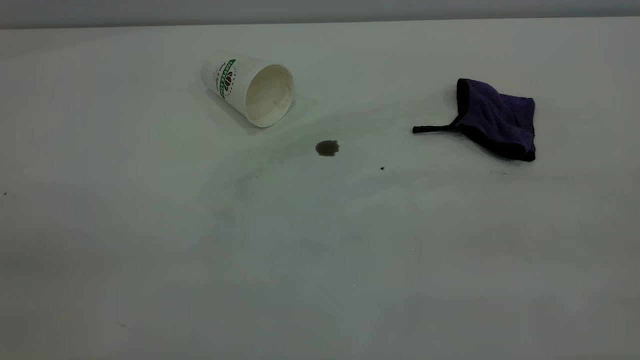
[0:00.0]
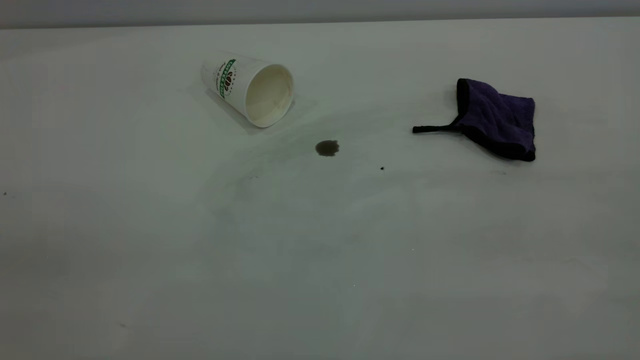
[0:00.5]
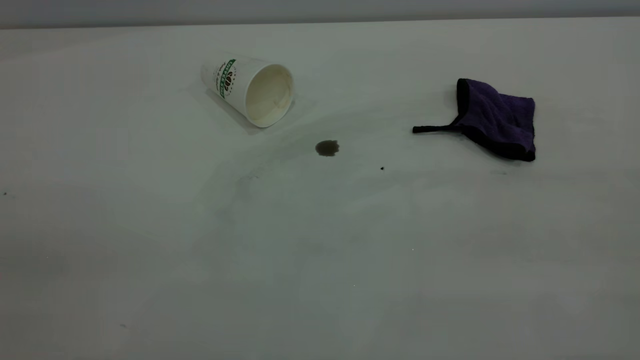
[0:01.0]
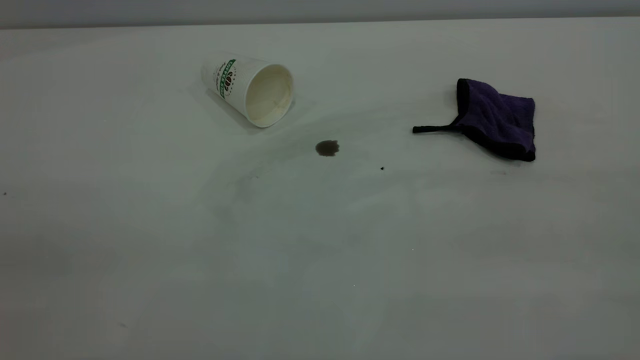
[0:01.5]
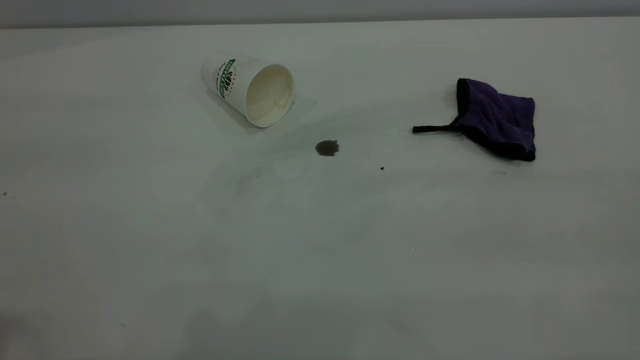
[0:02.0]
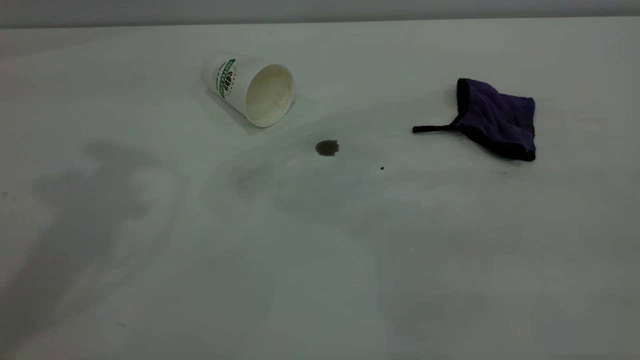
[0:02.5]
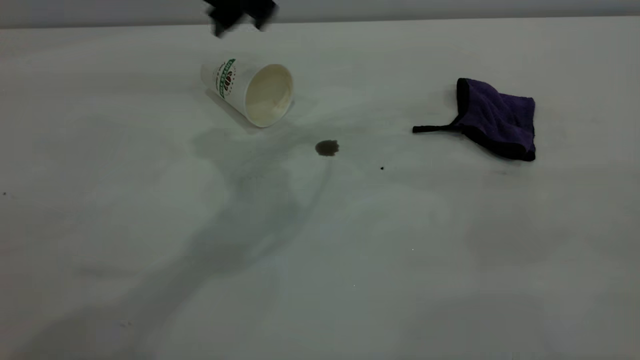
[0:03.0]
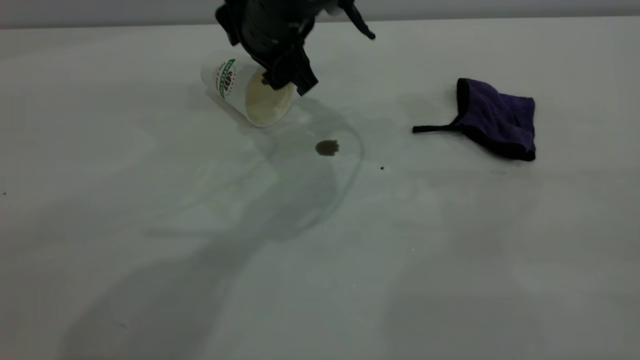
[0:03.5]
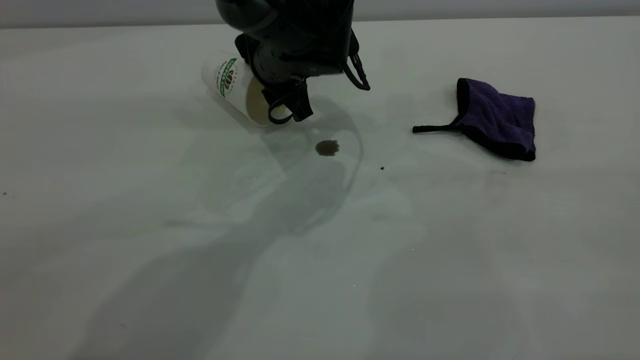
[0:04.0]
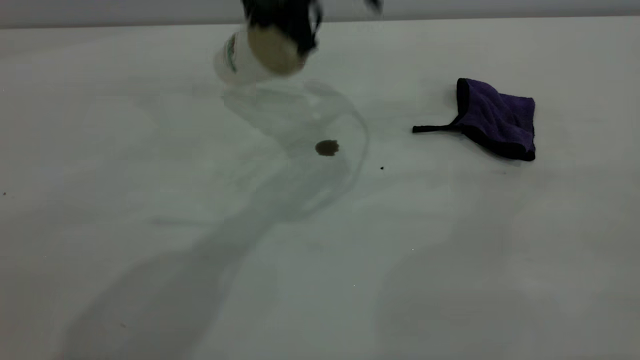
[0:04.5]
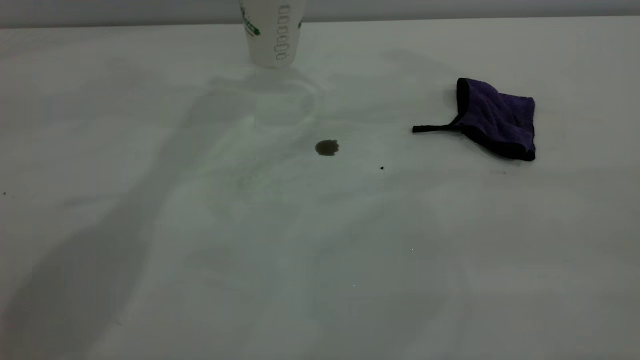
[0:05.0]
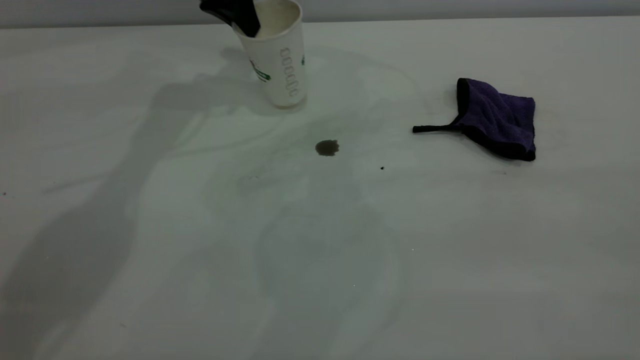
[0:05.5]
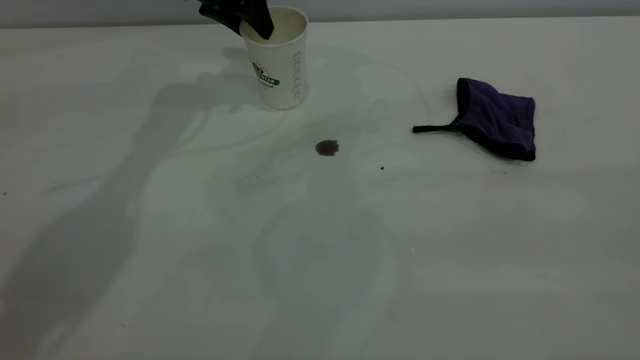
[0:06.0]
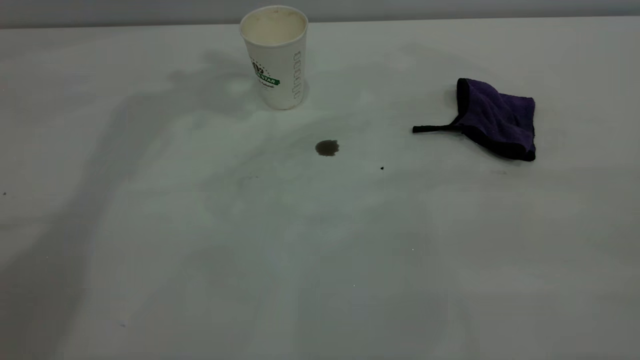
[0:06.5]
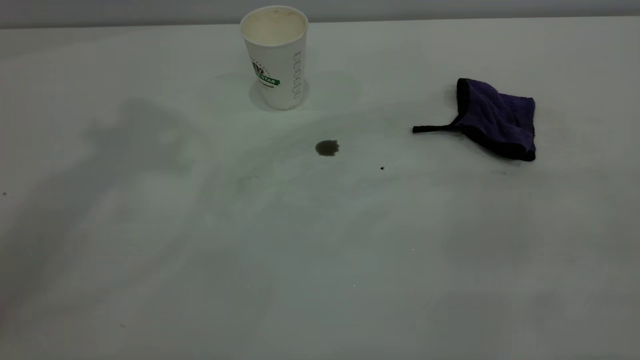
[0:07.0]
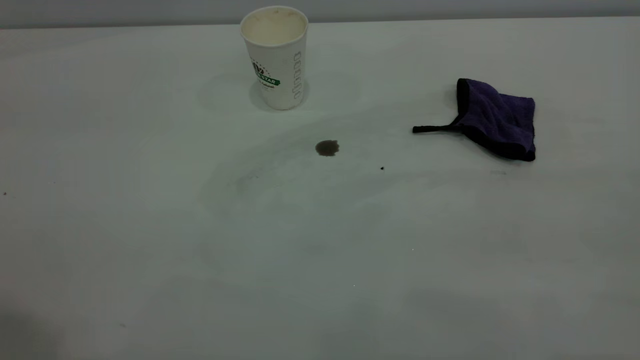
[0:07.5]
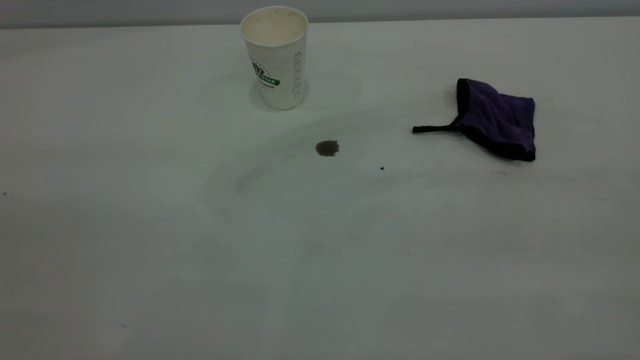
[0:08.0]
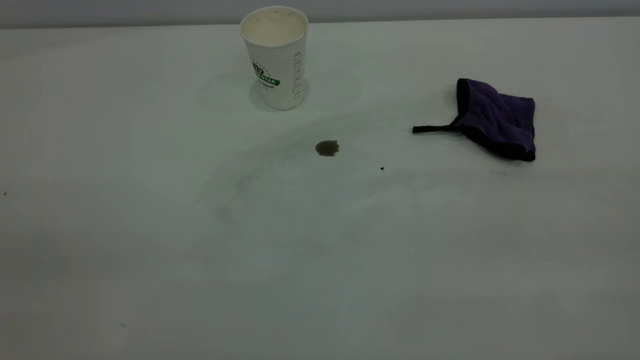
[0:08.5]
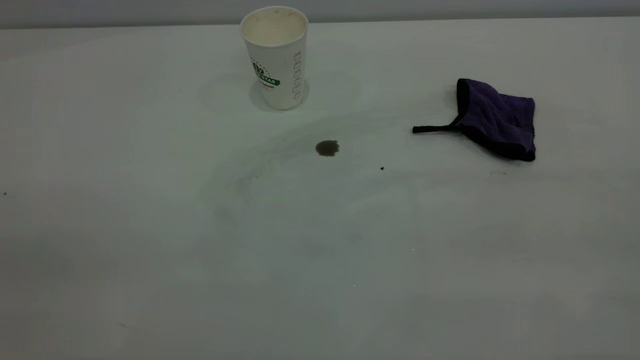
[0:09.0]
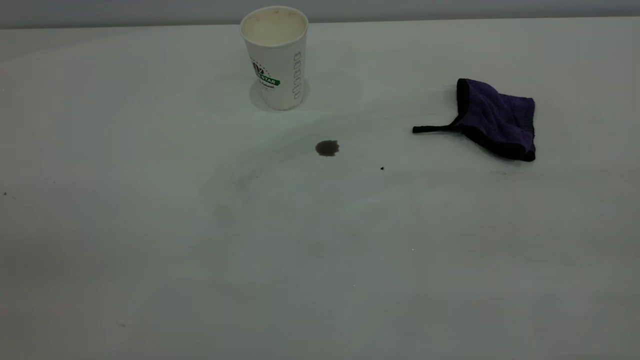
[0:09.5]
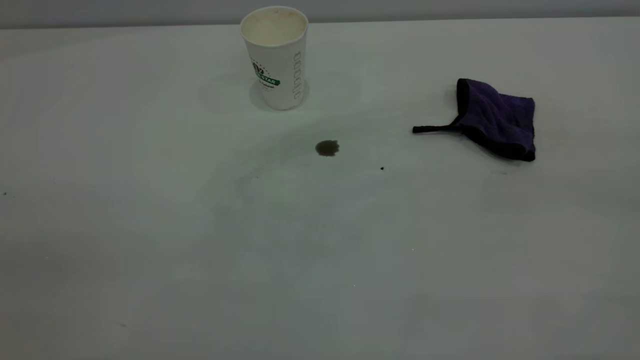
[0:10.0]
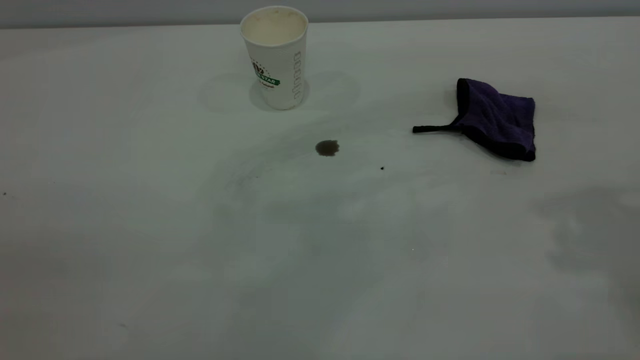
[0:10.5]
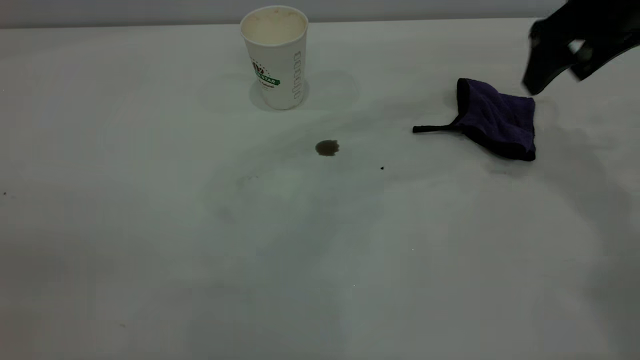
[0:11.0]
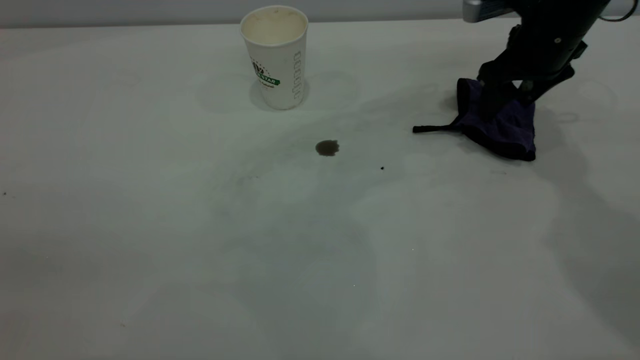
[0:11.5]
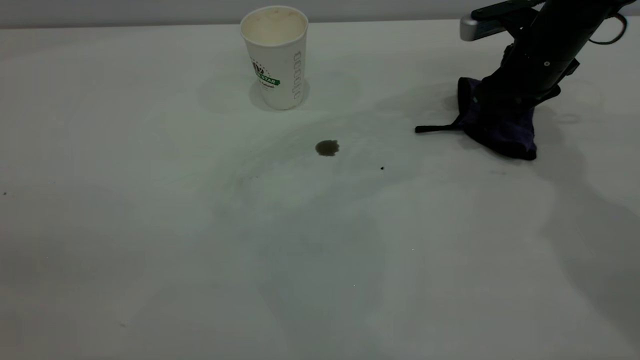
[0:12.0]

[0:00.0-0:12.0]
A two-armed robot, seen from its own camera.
Task of the whole recording: the left gripper pick up the fallen cup and place it upright, the right gripper grasp the purple rag and wipe the coffee stain on the table, the right gripper put the purple rag back in its original position.
Step, 0:00.0 to 0:06.0: Stand the paper cup upright.
0:02.0 to 0:04.0: The left gripper shifts about 50 cm downward, forward and to the right.
0:04.0 to 0:06.0: The left gripper travels to the left, forward and upward by about 20 cm, and closes, then opens again.
0:06.0 to 0:08.0: The left gripper moves backward and upward, roughly 60 cm.
0:10.0 to 0:12.0: The right gripper goes approximately 50 cm forward and downward, and opens, then closes again.

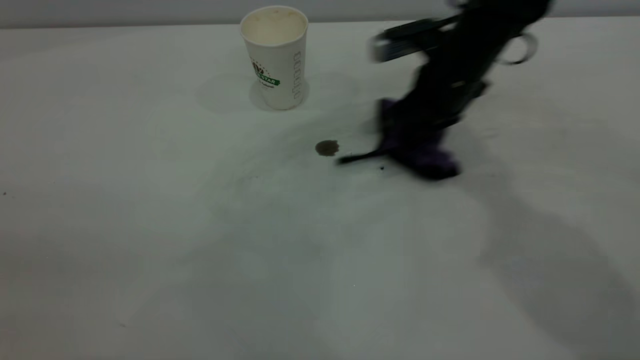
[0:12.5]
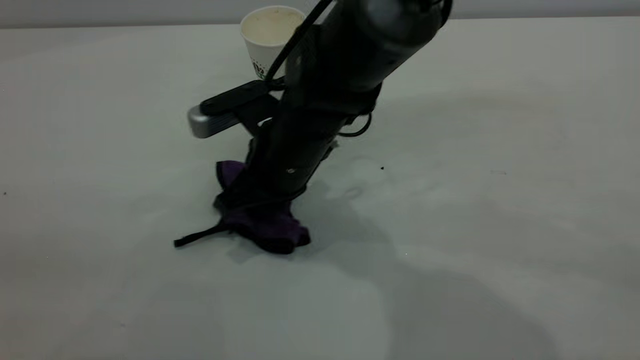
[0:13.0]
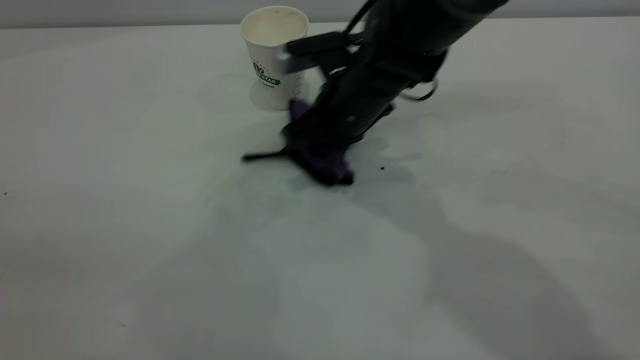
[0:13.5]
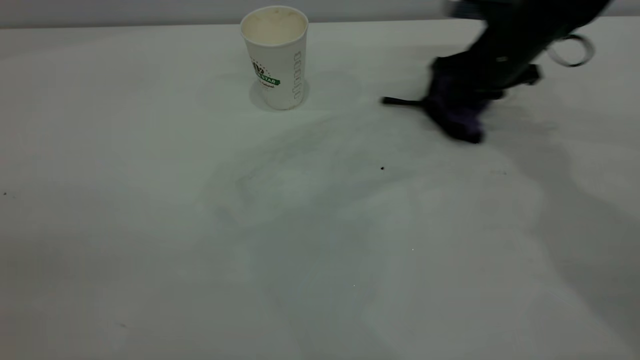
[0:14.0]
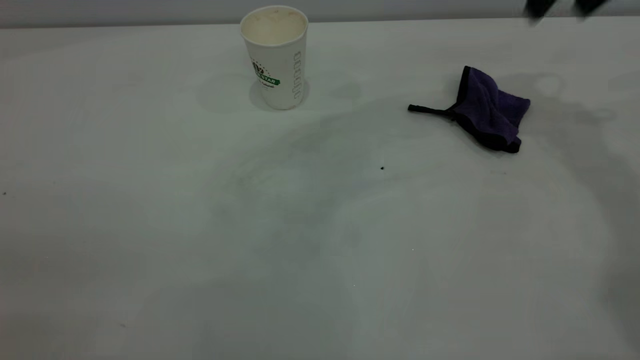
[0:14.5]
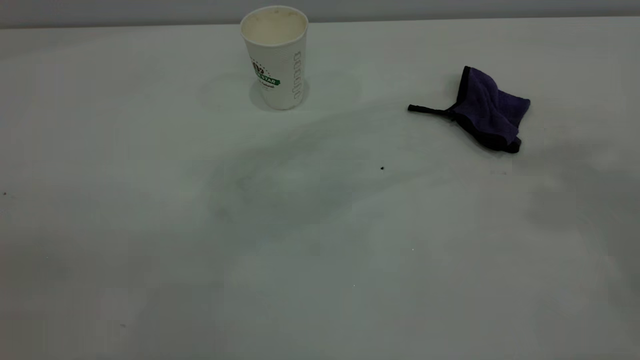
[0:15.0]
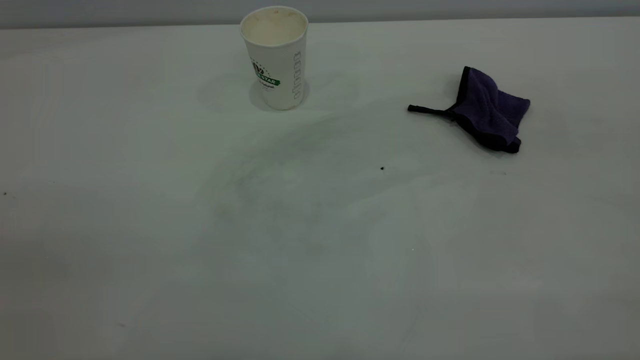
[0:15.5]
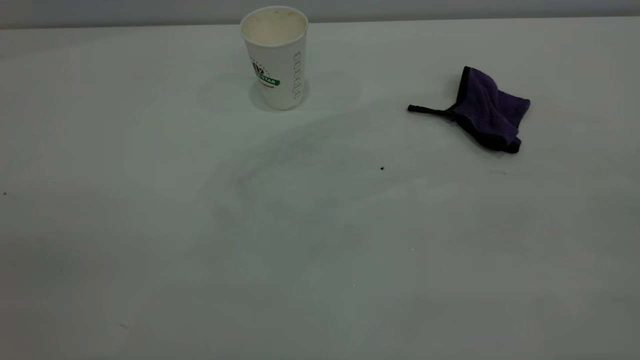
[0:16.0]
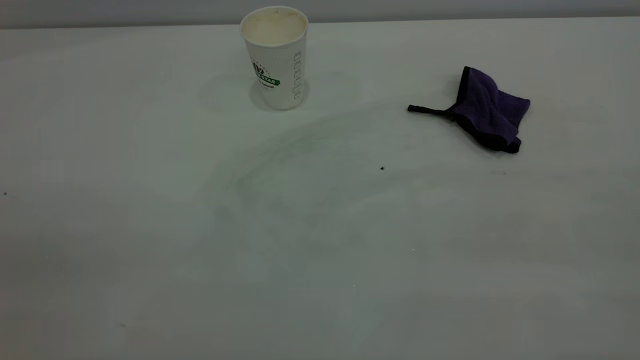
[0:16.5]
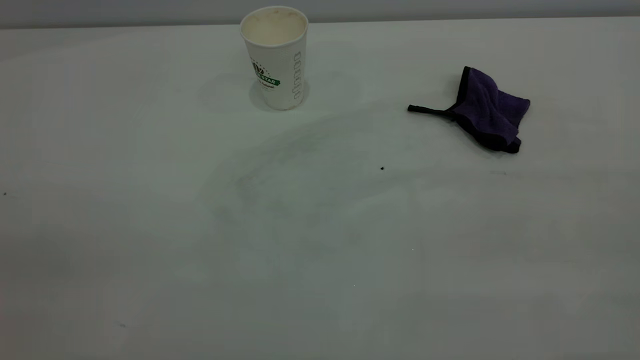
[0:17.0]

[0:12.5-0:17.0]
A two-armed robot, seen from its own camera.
Task of the whole recording: the left gripper pick up the fallen cup and place it upright, the right gripper grasp the purple rag and wipe the coffee stain on the table, the right gripper put the purple rag back in its original position.
0:12.5 to 0:14.5: The right gripper heads upward and to the right, covering roughly 25 cm, and opens.
